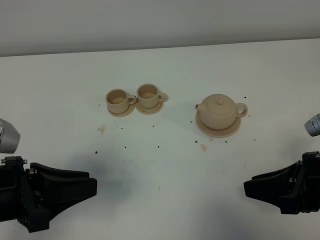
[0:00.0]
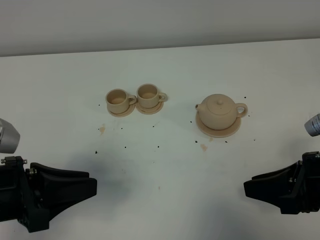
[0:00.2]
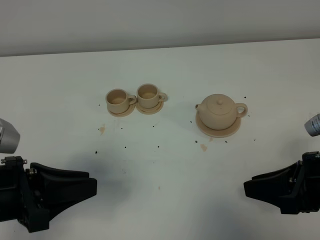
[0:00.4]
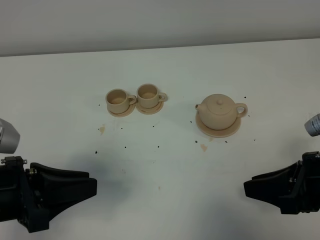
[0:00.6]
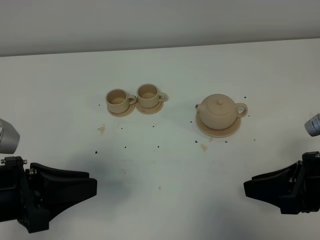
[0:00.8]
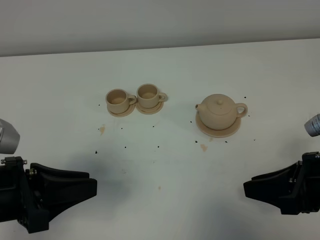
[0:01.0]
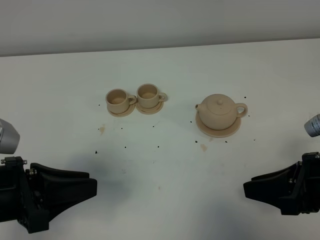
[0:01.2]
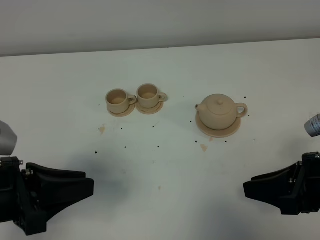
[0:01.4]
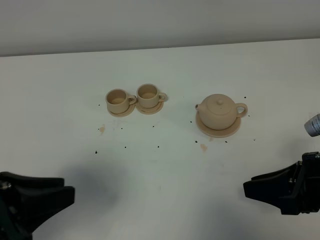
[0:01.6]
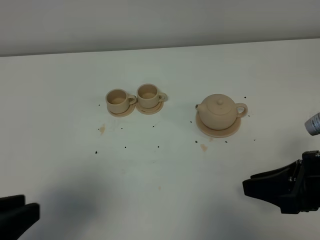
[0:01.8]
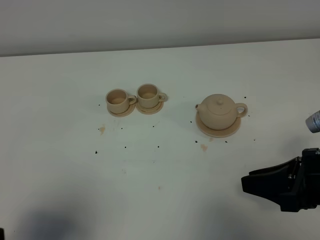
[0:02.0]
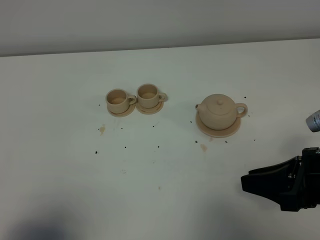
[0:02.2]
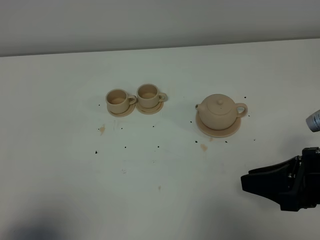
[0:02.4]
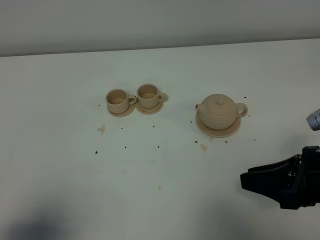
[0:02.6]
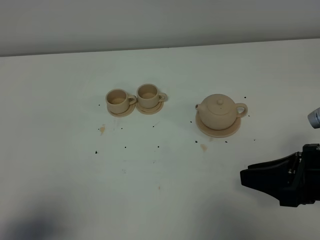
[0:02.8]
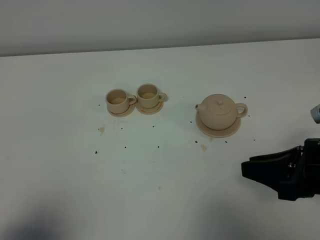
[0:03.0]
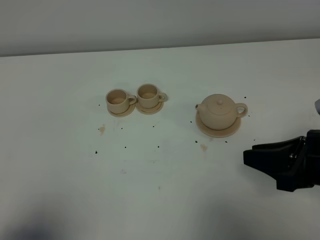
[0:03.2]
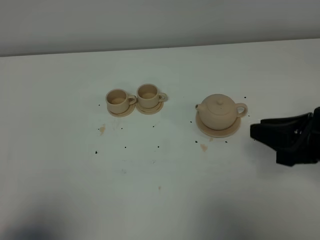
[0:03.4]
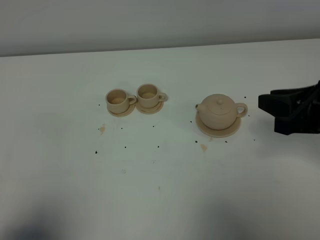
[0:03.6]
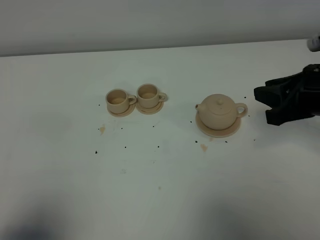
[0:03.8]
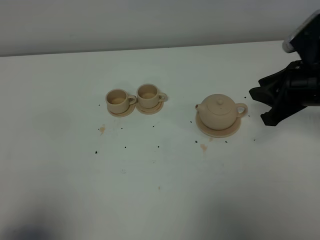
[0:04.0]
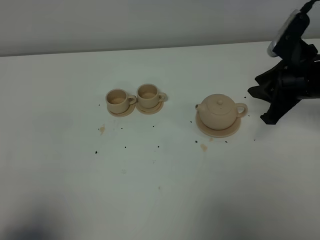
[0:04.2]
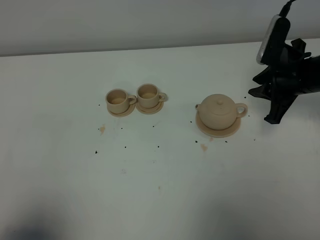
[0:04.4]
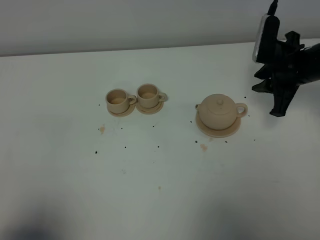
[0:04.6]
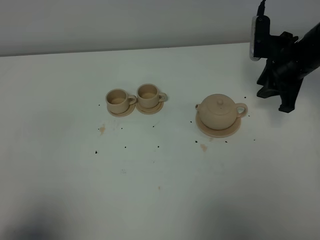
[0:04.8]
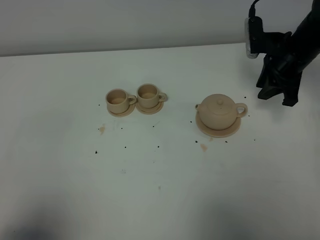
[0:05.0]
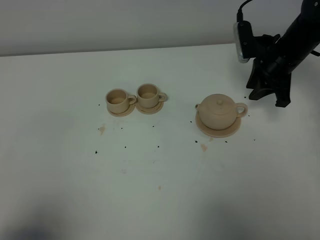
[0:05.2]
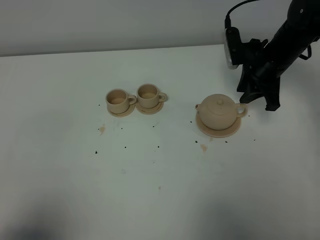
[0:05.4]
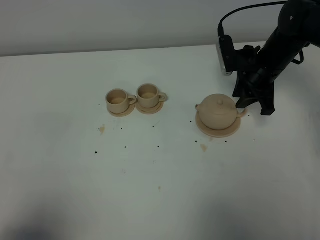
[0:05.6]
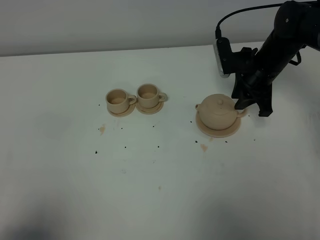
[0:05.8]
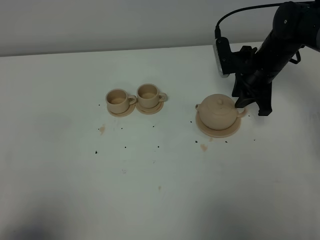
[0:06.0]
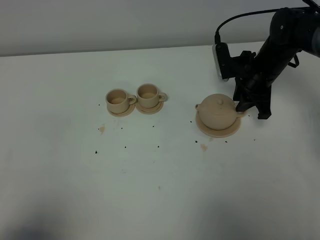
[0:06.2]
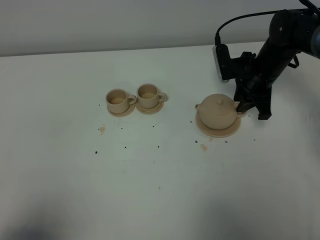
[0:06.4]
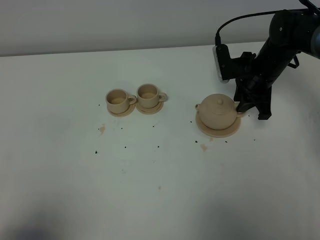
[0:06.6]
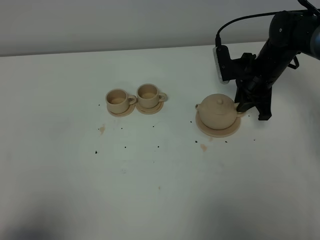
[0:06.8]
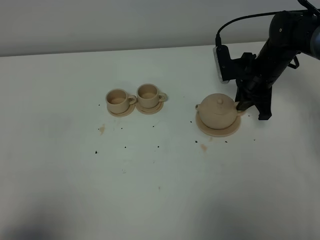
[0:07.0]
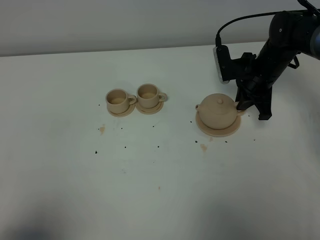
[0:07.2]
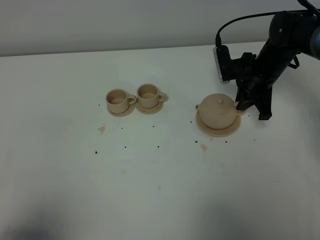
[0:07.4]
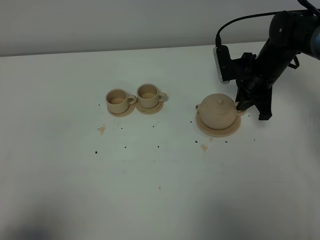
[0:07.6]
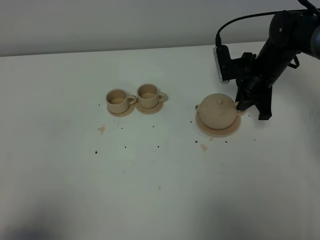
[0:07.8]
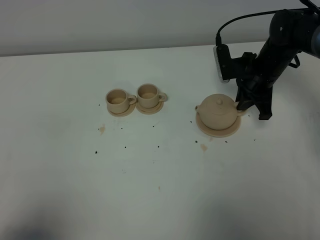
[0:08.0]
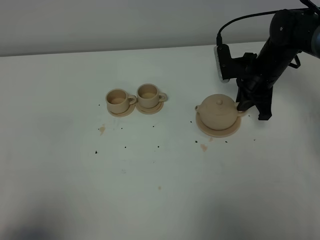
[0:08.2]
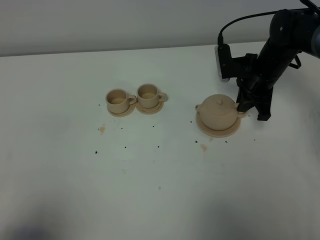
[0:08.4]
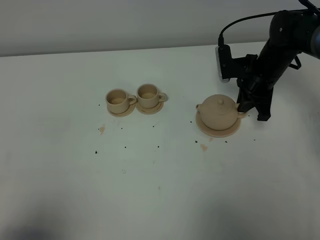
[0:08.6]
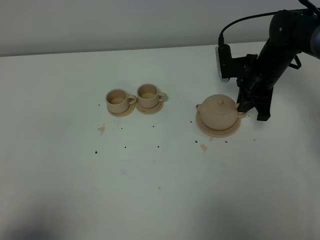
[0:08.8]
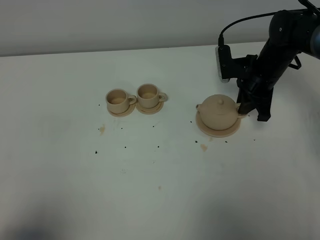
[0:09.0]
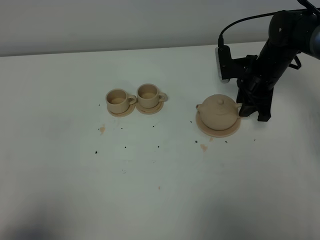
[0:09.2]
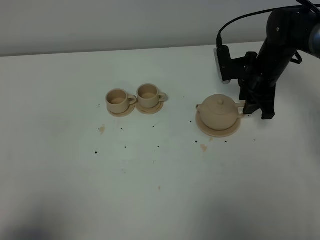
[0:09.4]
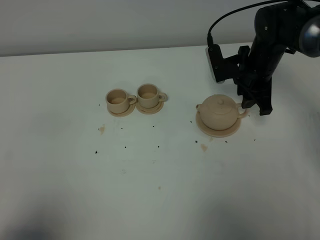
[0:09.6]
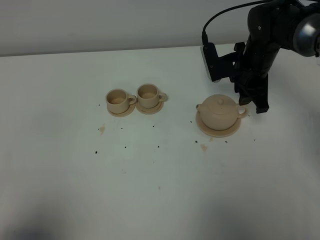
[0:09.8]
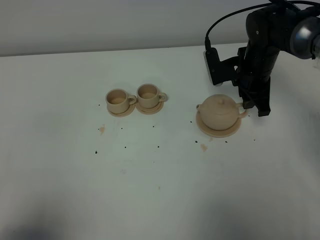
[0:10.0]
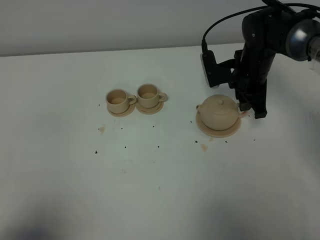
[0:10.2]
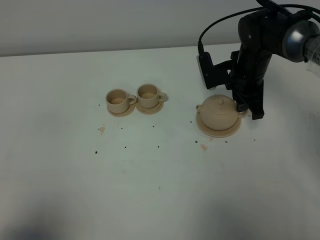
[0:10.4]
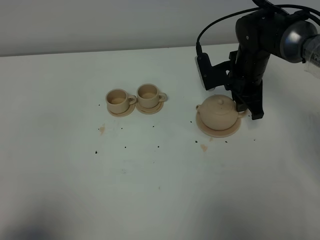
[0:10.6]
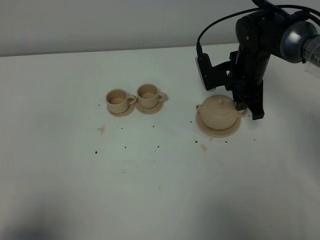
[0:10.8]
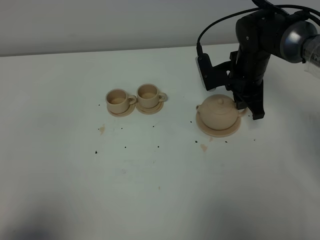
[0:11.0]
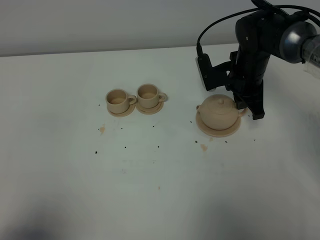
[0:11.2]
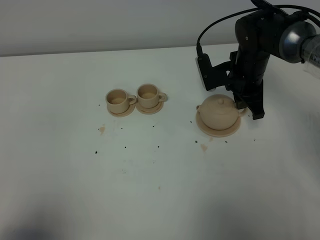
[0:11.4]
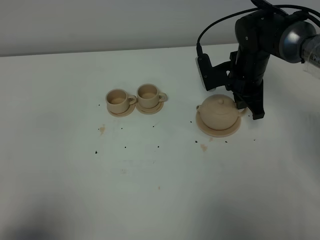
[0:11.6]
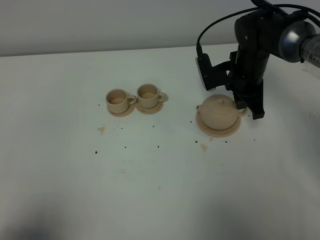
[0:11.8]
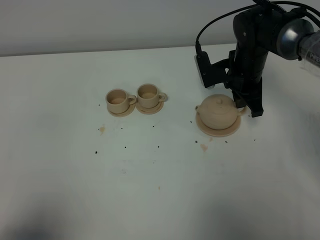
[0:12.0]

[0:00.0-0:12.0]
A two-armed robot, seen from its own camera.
Task of the whole recording: grasp the brown teapot and pour the tea into the two brown teacups one by one, put the brown teapot back in its original place.
0:00.0 to 0:01.6: The grippers make only small movements.
0:01.6 to 0:03.0: The left gripper heads backward and to the left, covering some 10 cm.
0:03.0 to 0:04.4: The right gripper is displaced forward by some 20 cm.
0:04.4 to 0:06.0: The right gripper travels forward and to the left by roughly 10 cm.
0:06.0 to 0:07.6: The right gripper closes its fingers.
0:07.6 to 0:10.4: The grippers make only small movements.
0:10.4 to 0:12.0: The right gripper closes up.

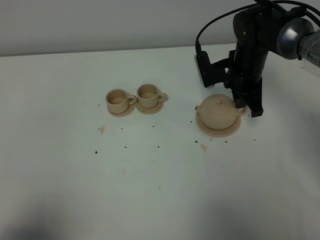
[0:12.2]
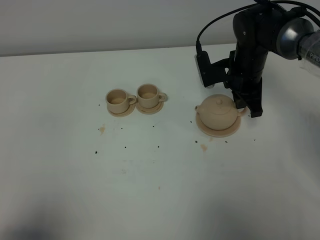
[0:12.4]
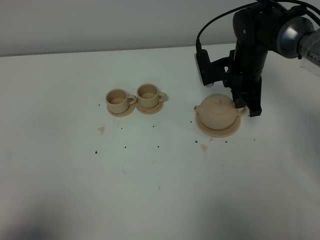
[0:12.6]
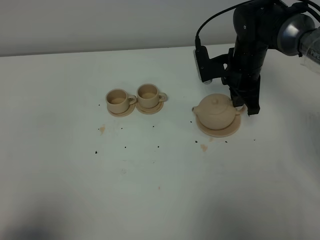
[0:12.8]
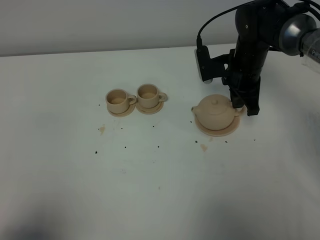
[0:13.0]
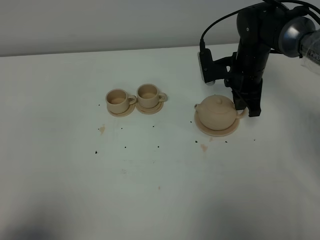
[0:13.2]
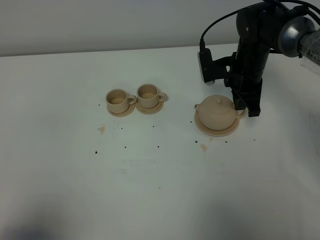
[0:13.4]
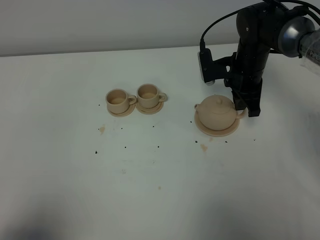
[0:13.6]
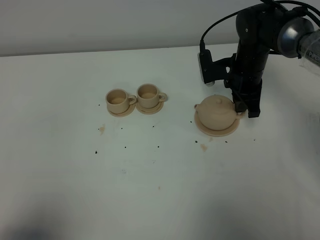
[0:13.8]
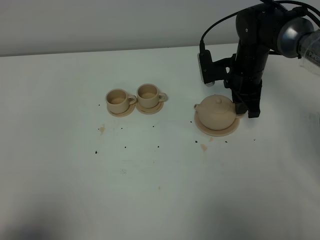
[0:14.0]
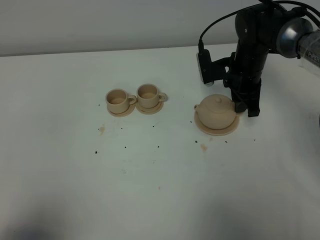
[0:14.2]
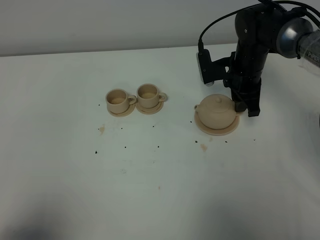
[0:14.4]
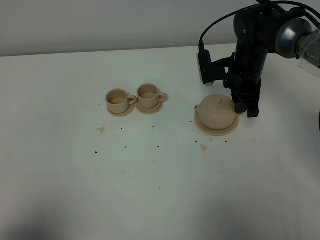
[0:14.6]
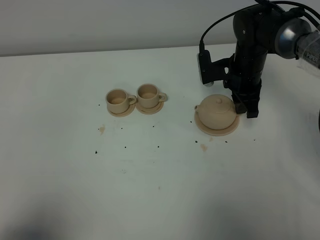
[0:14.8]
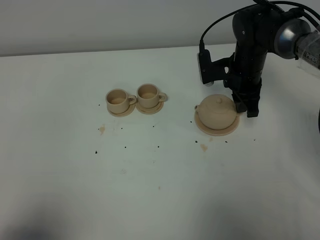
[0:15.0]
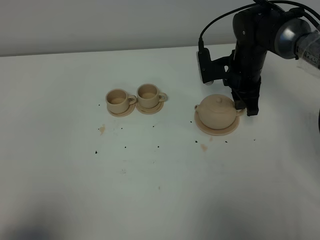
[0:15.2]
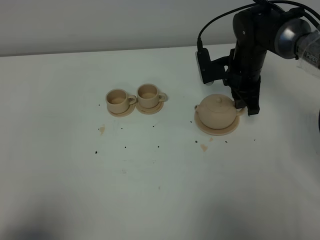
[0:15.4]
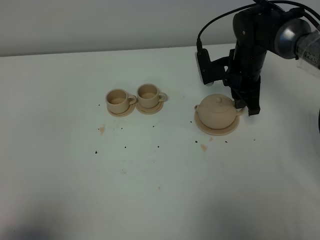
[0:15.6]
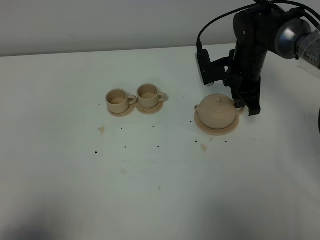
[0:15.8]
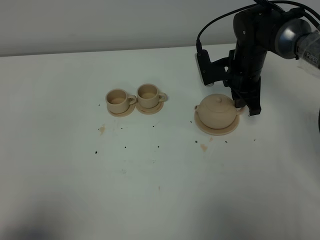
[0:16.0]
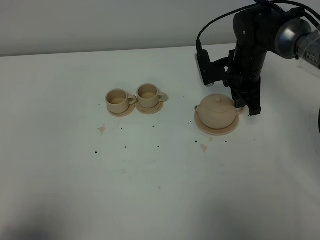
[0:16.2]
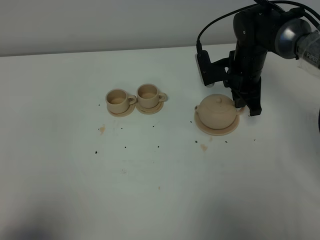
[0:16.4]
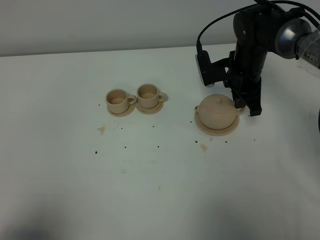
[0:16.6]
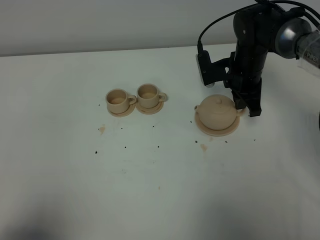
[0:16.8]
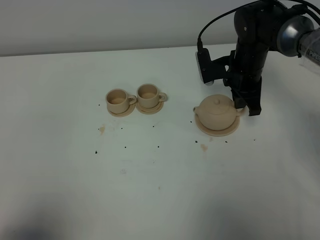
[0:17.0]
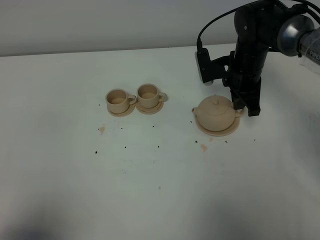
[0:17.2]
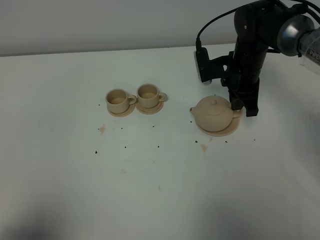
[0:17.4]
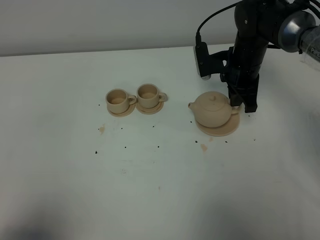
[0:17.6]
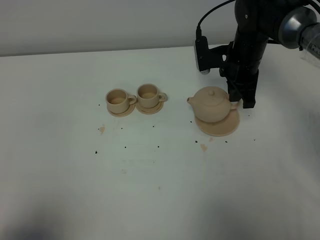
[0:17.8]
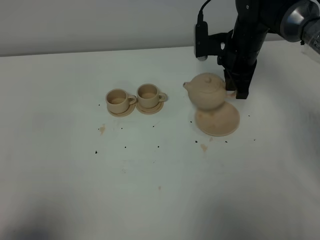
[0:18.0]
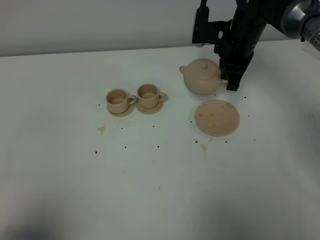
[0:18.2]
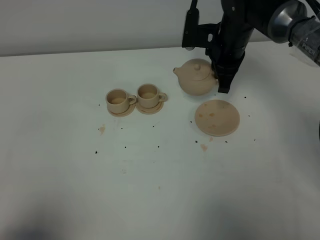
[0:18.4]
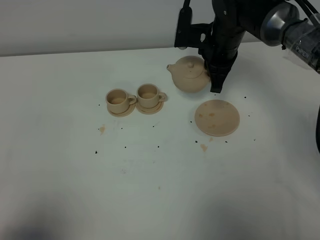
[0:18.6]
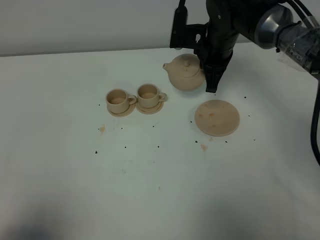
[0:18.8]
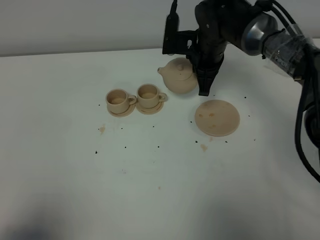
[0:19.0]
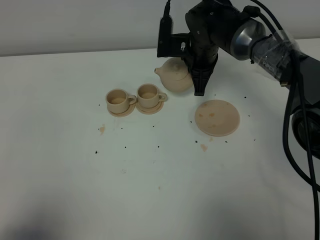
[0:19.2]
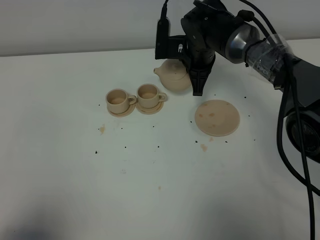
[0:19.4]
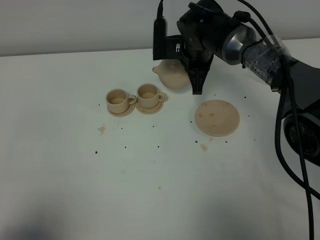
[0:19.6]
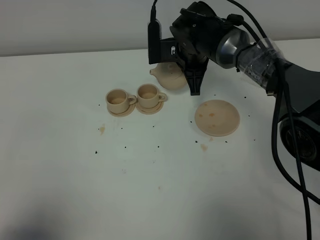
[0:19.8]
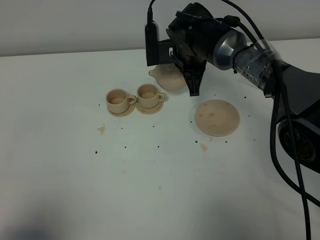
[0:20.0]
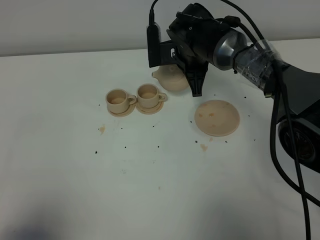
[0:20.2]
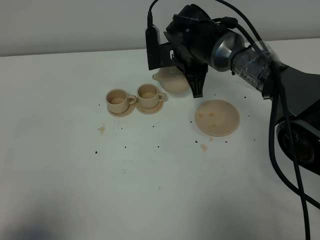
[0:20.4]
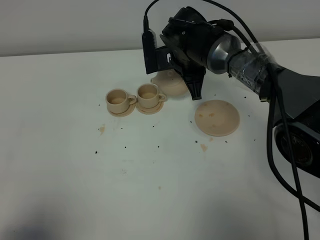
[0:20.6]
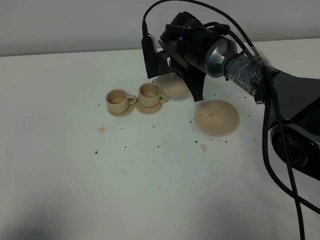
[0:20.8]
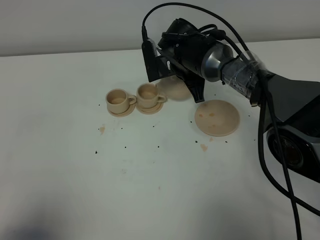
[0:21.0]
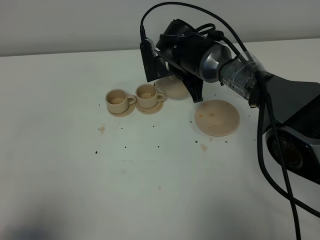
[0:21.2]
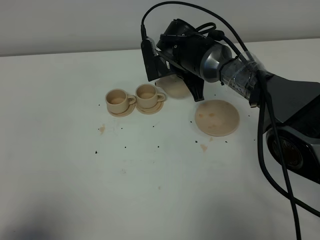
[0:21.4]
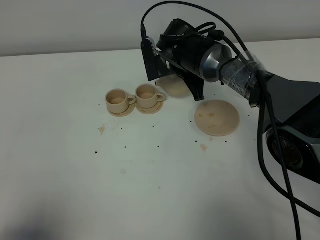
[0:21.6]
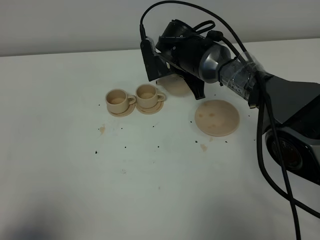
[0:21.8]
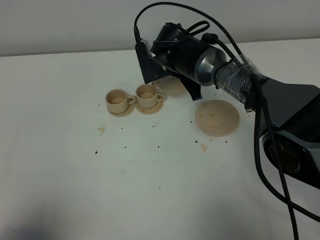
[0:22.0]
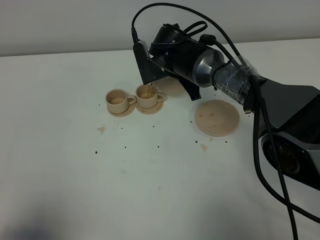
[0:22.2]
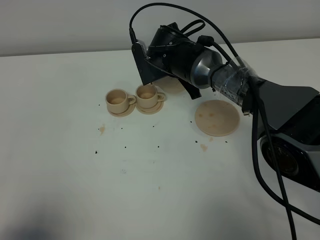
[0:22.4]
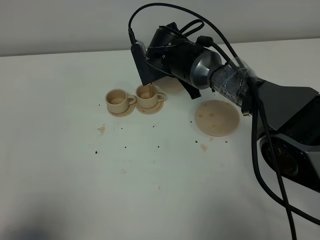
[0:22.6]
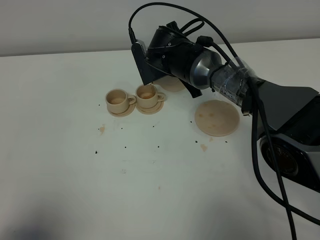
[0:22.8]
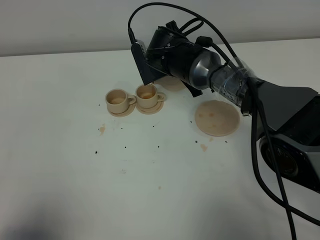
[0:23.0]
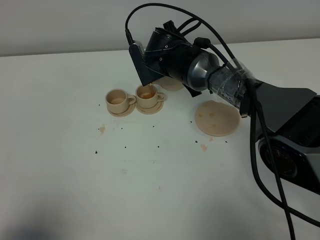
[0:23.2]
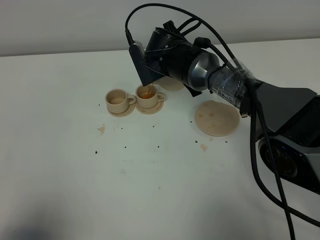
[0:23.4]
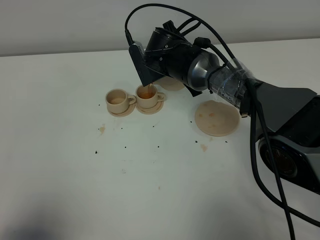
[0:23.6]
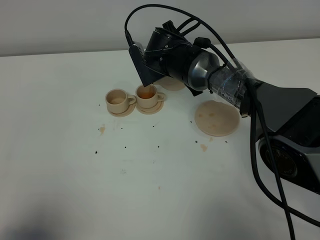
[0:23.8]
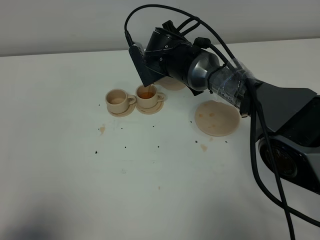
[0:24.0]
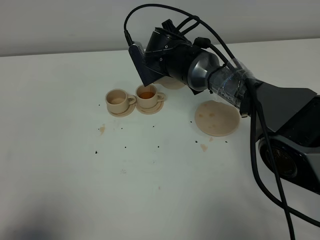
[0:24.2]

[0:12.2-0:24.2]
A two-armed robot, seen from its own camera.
Task of the whole recording: grasp the brown teapot and pour the tea into the two brown teacups one by one, put the brown teapot back in its original place.
Step, 0:12.2 to 0:17.4: Pick up the teapot with the right gripper.
0:12.2 to 0:13.8: The right gripper opens its fingers.
0:13.8 to 0:15.2: Both grippers stay put.
0:15.2 to 0:16.6: The right gripper closes.
0:16.6 to 0:18.2: The right gripper heads upward, covering approximately 5 cm.
0:18.2 to 0:19.8: The right gripper heads to the left, covering roughly 10 cm.
0:19.8 to 0:21.2: The grippers stay close to where they were, moving slightly.
0:21.2 to 0:24.2: The grippers make only small movements.
